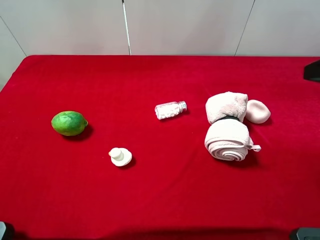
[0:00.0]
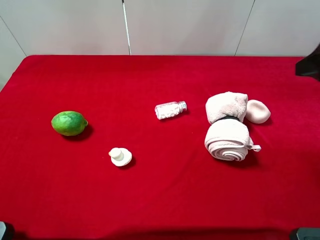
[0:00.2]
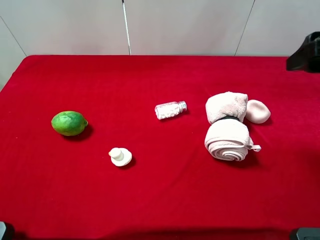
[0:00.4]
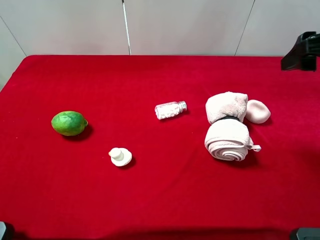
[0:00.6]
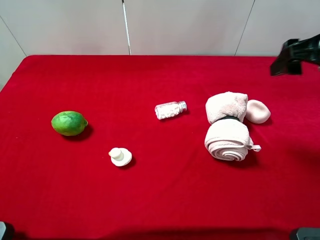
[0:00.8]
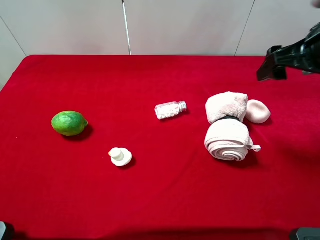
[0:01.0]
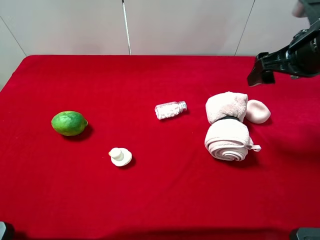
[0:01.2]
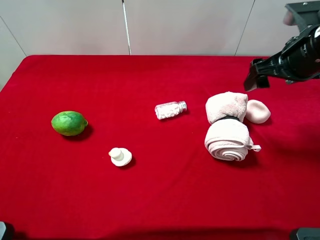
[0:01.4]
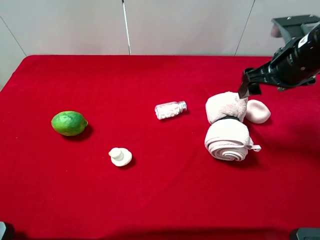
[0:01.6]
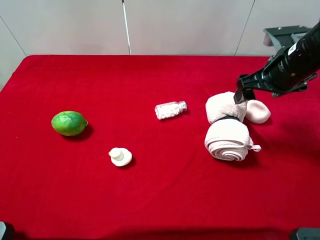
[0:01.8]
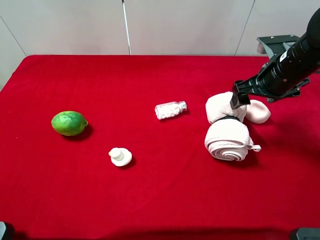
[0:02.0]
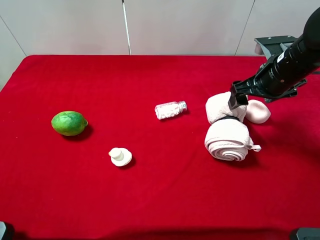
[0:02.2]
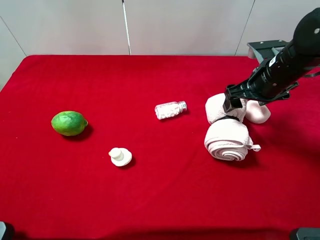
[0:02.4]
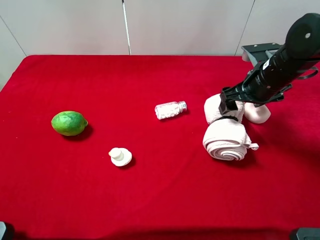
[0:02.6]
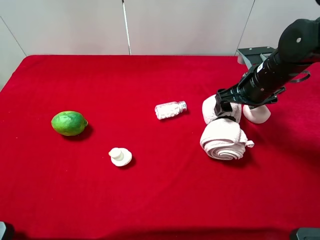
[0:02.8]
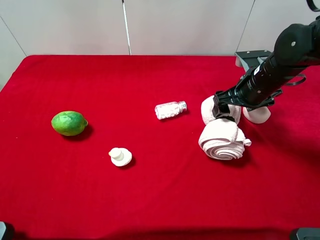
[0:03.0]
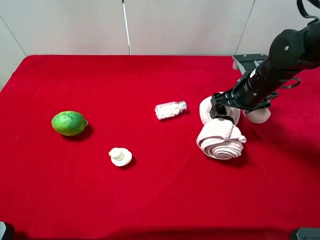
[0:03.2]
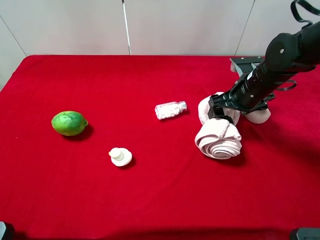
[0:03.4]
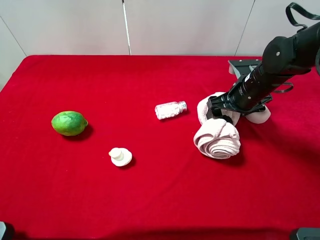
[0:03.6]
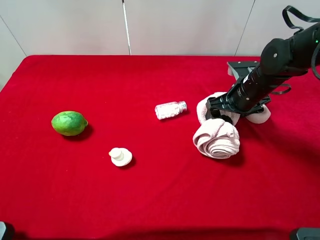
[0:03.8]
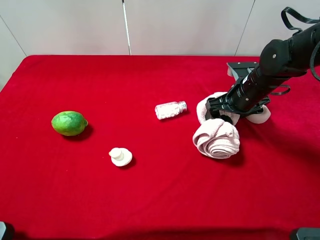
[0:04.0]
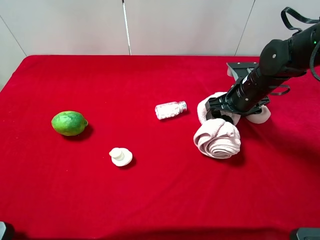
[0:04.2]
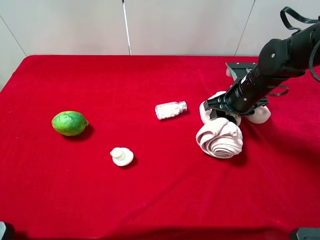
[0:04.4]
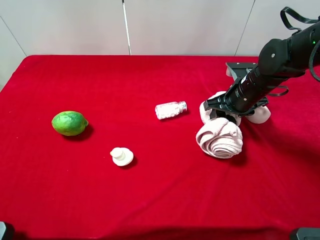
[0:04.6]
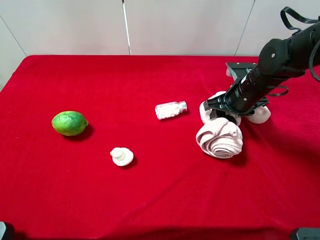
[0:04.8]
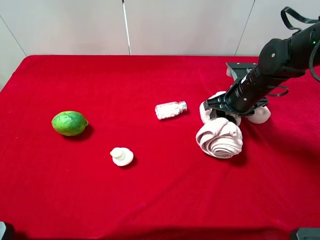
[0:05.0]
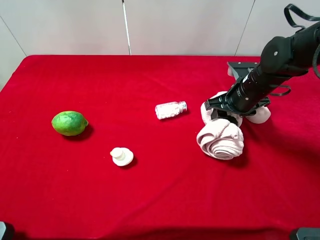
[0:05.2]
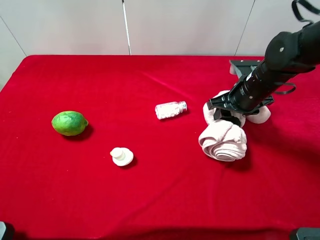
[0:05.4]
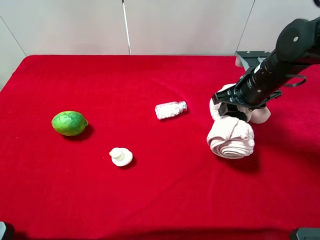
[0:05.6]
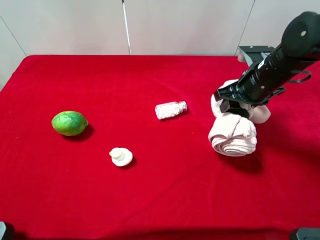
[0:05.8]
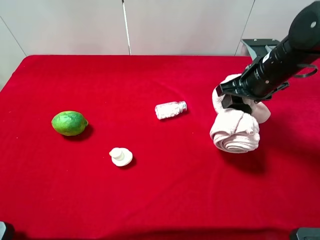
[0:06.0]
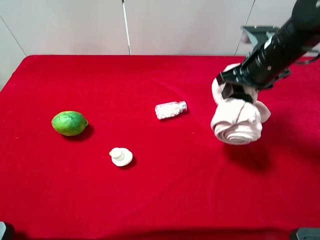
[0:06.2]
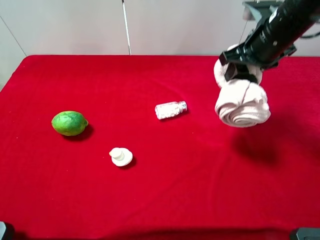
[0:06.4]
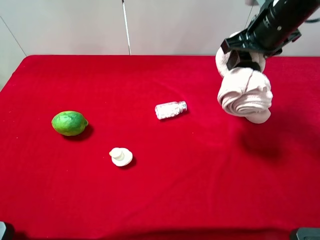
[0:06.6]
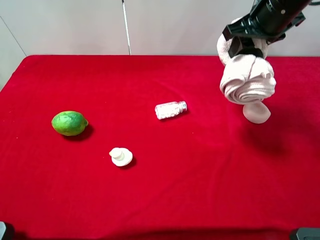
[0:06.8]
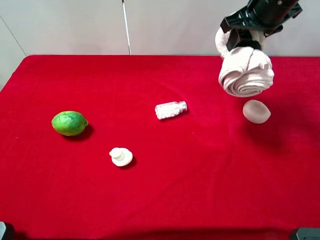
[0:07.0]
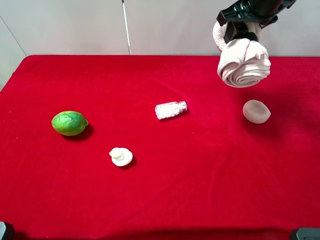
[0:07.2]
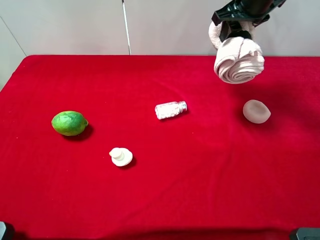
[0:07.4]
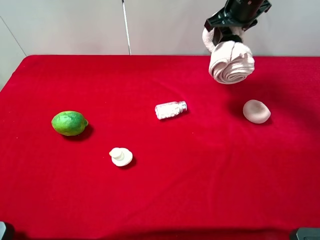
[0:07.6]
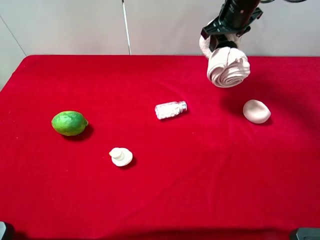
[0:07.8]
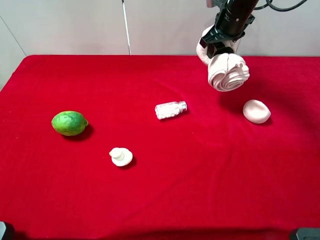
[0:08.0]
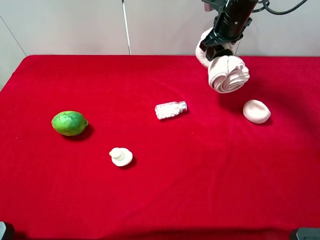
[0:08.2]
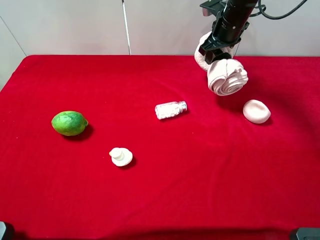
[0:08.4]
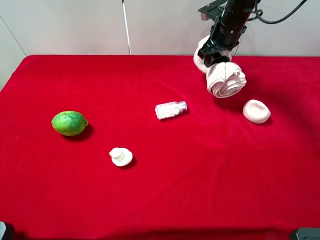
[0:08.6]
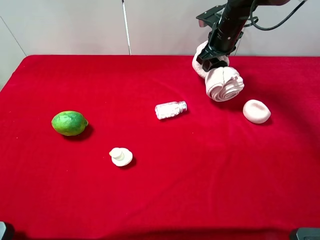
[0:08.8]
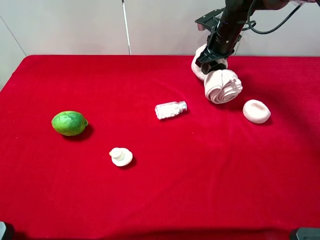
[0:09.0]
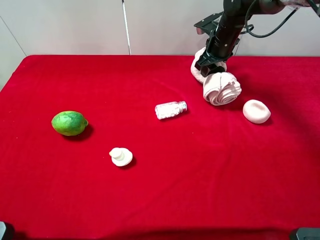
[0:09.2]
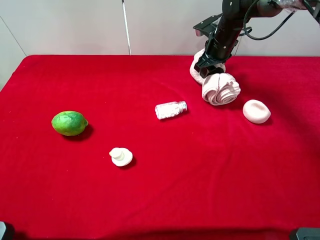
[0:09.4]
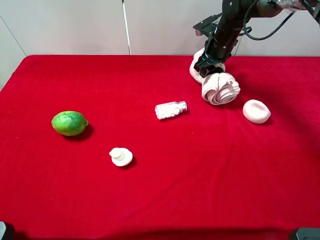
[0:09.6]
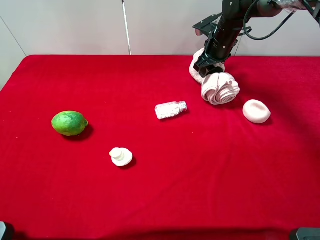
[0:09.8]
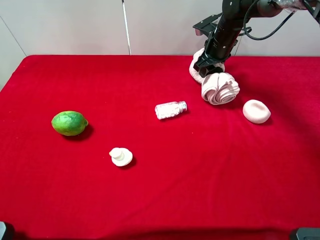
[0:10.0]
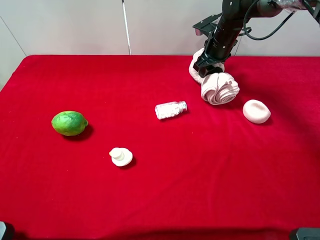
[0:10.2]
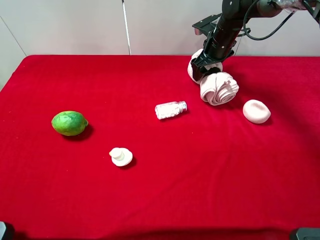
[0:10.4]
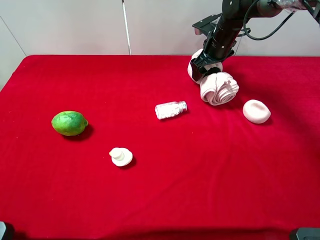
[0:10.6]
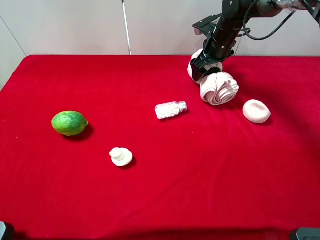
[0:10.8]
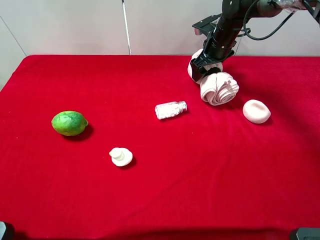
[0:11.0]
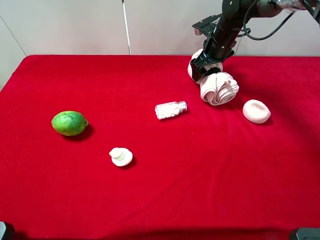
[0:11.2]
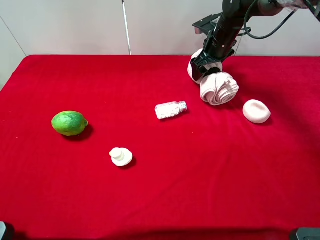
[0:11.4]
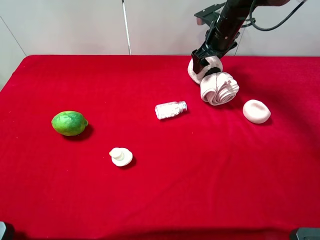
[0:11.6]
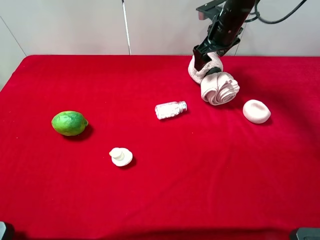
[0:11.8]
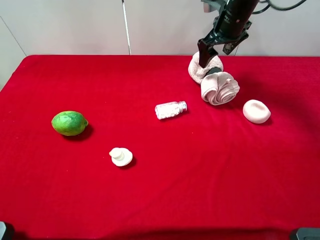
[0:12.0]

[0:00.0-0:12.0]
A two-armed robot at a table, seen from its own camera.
Task of the whole recording: the gripper move the object.
Step, 0:00.0 to 0:04.6: Grasp the pink towel with the right gripper.
0:00.0 to 0:01.6: The right gripper is displaced forward and downward by approximately 15 cm.
0:01.6 to 0:03.0: The right gripper shifts some 5 cm downward.
0:03.0 to 0:04.4: The right gripper closes.
0:04.4 to 0:06.0: The right gripper shifts approximately 10 cm upward.
0:06.0 to 0:07.6: The right gripper goes some 15 cm forward and upward.
0:07.6 to 0:09.0: The right gripper moves downward, roughly 10 cm.
0:09.0 to 0:10.4: The right gripper opens up.
0:10.4 to 0:12.0: The right gripper heads upward, covering roughly 10 cm.

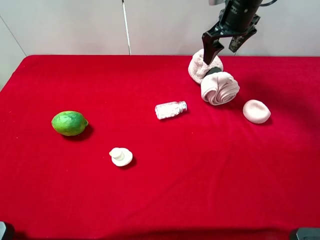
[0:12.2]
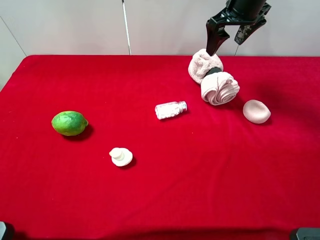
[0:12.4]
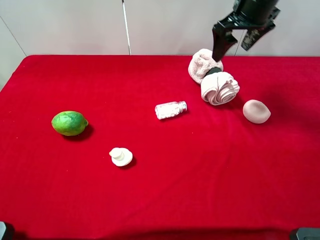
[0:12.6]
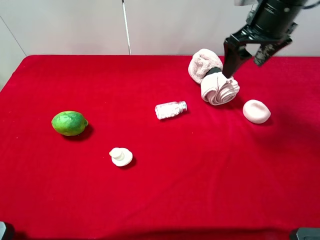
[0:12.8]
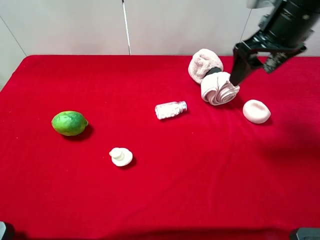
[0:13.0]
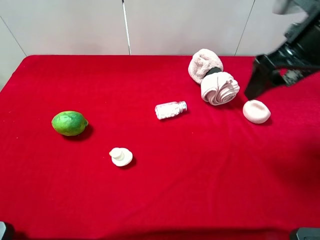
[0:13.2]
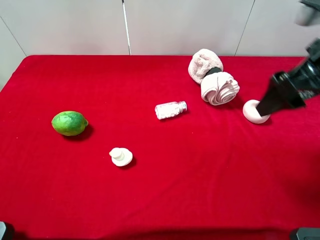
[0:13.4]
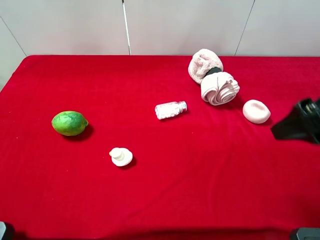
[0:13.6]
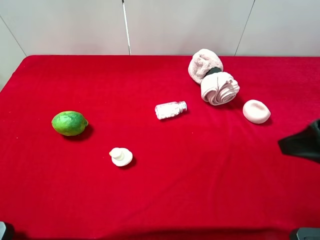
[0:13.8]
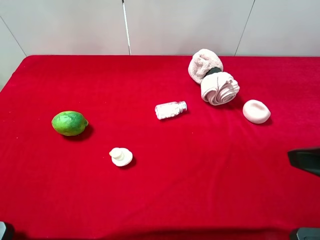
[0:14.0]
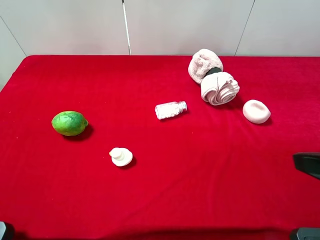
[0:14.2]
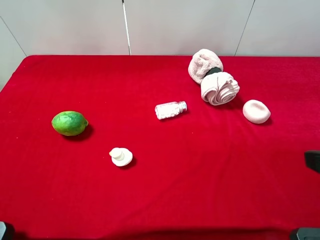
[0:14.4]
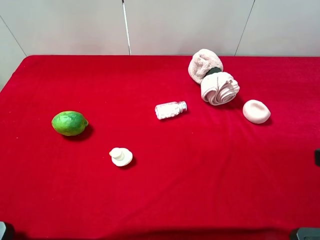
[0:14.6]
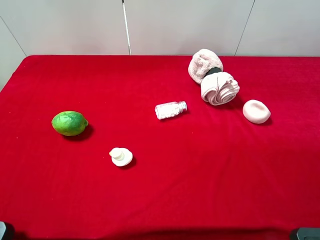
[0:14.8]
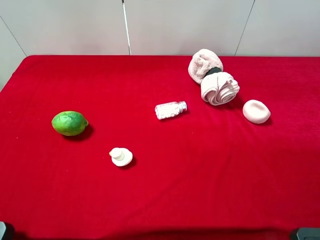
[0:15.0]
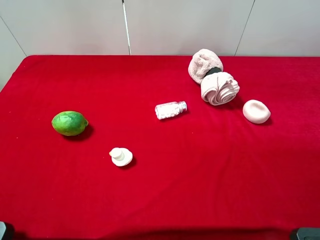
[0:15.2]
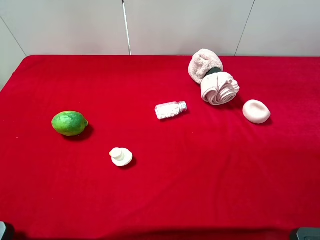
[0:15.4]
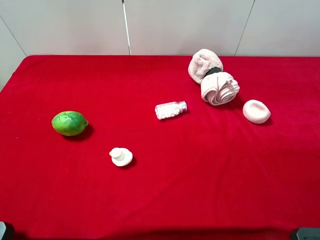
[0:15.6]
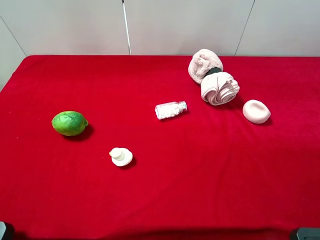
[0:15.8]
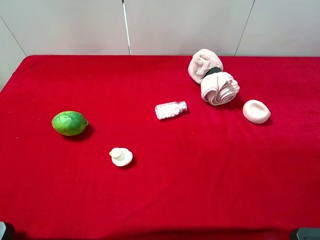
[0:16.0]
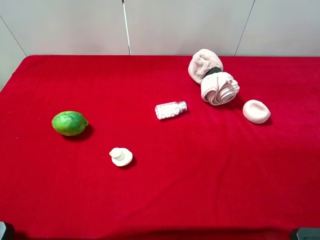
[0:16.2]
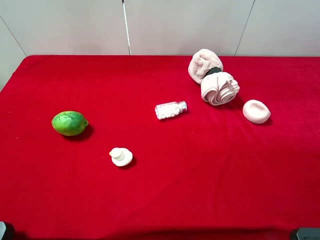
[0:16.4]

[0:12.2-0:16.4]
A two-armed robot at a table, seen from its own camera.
Task of the whole recording: the gripper move the object.
0:12.2 to 0:13.6: The right gripper goes approximately 30 cm backward.
0:13.6 to 0:15.0: The right gripper goes some 15 cm backward.
0:15.0 to 0:16.4: Both grippers stay about where they are.
